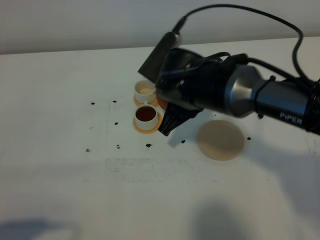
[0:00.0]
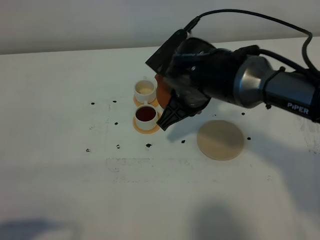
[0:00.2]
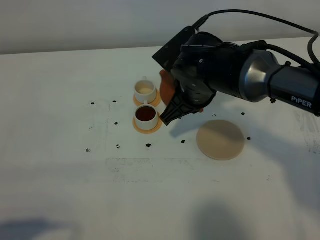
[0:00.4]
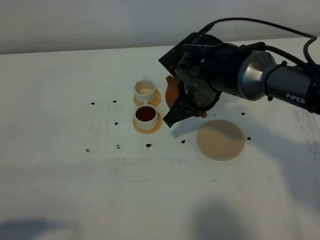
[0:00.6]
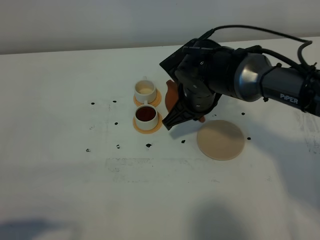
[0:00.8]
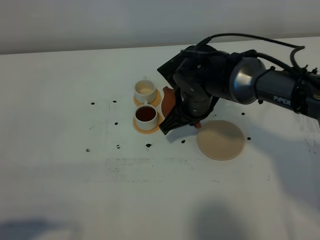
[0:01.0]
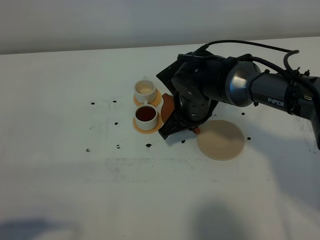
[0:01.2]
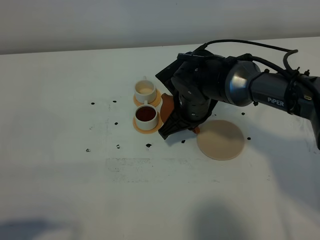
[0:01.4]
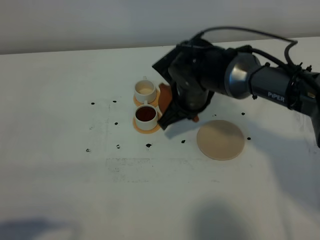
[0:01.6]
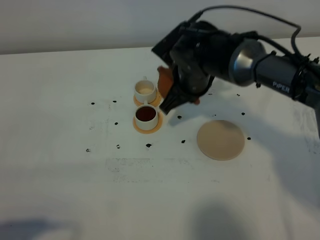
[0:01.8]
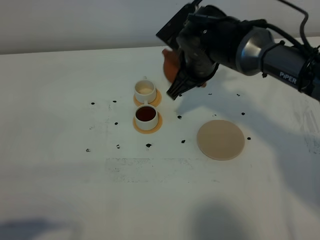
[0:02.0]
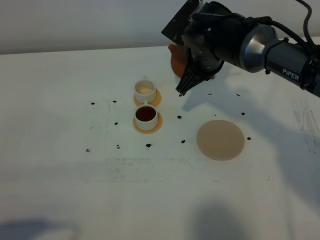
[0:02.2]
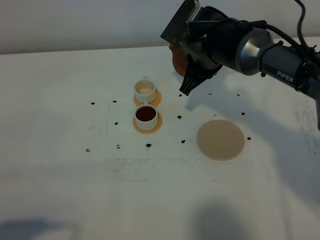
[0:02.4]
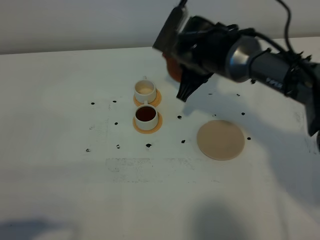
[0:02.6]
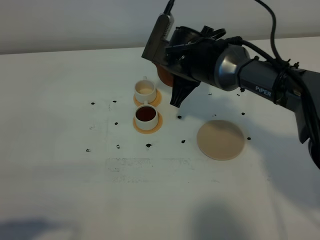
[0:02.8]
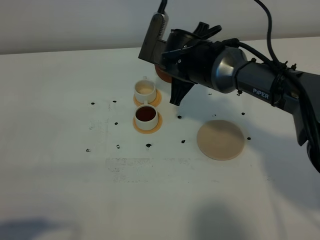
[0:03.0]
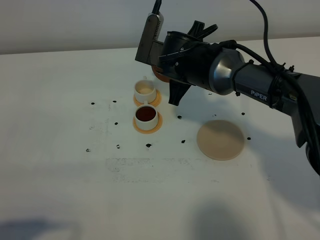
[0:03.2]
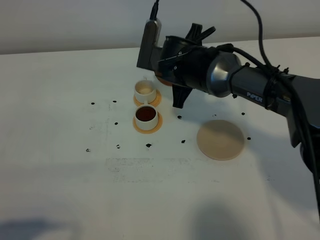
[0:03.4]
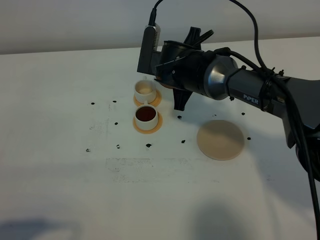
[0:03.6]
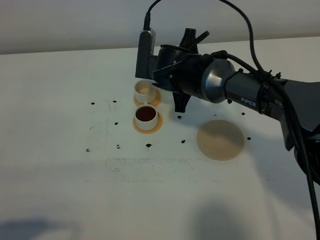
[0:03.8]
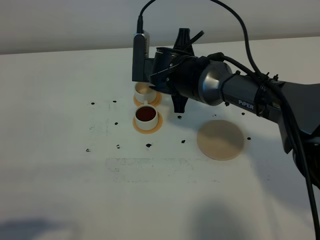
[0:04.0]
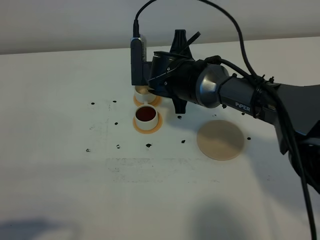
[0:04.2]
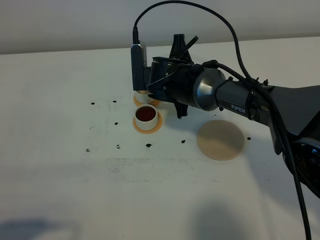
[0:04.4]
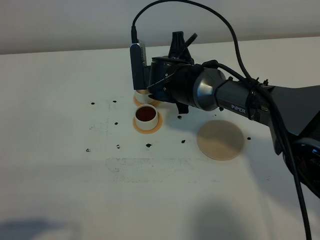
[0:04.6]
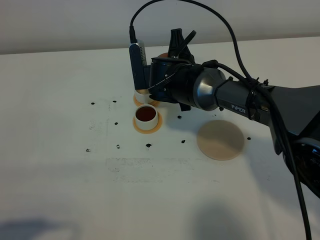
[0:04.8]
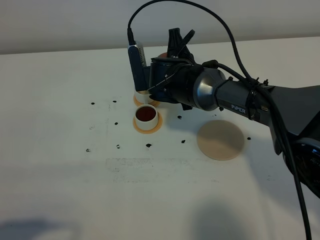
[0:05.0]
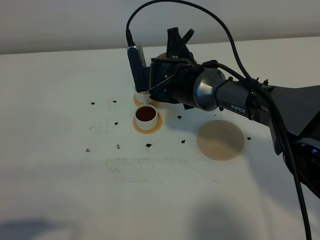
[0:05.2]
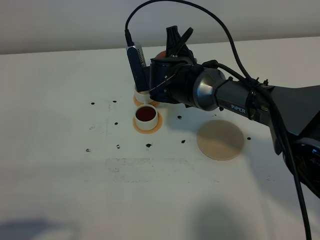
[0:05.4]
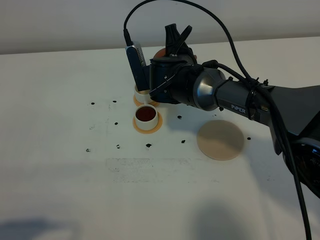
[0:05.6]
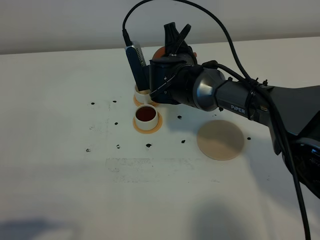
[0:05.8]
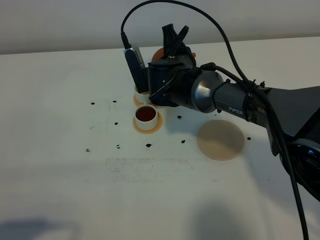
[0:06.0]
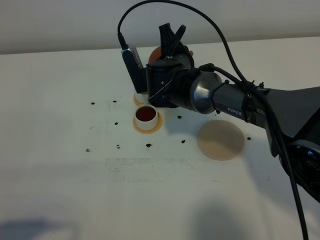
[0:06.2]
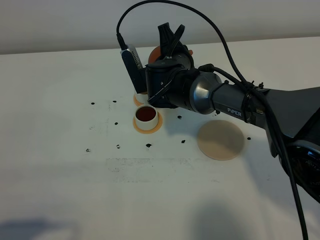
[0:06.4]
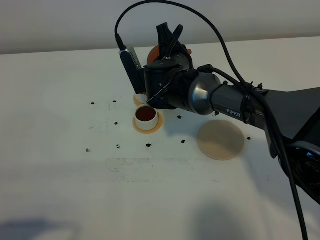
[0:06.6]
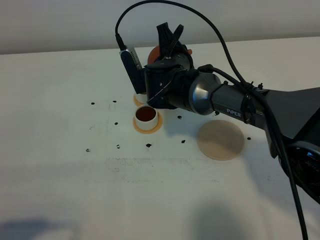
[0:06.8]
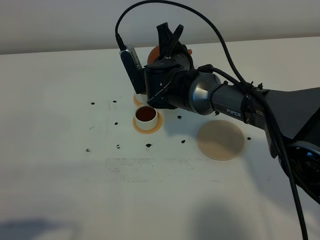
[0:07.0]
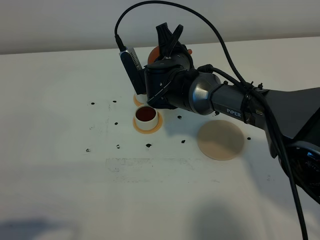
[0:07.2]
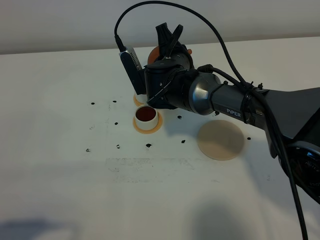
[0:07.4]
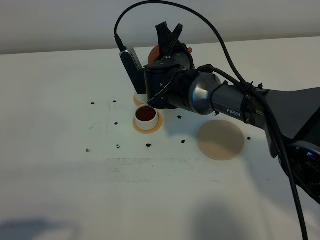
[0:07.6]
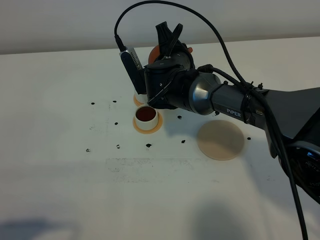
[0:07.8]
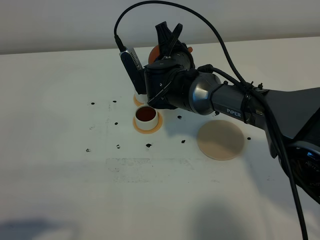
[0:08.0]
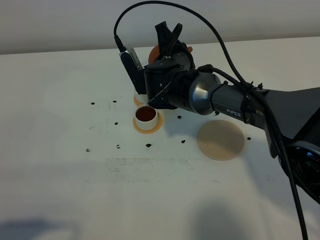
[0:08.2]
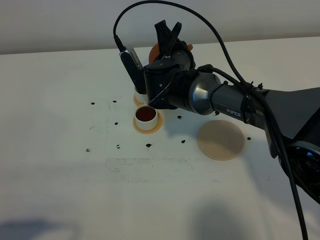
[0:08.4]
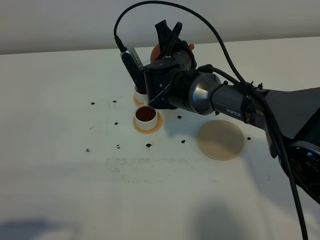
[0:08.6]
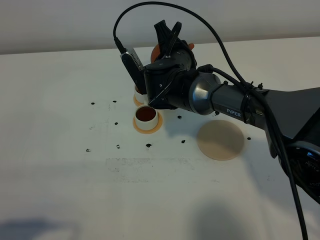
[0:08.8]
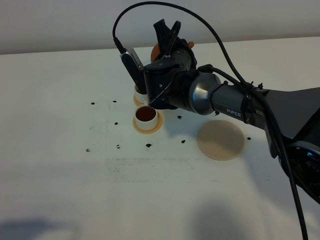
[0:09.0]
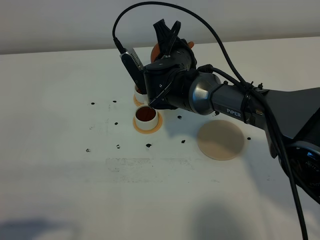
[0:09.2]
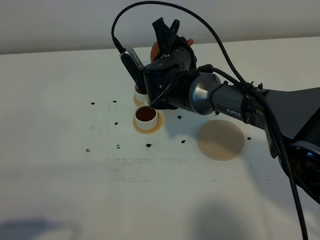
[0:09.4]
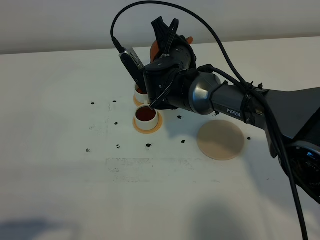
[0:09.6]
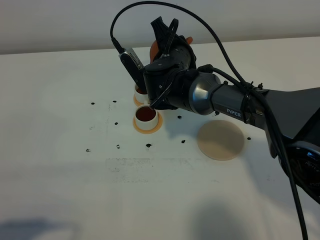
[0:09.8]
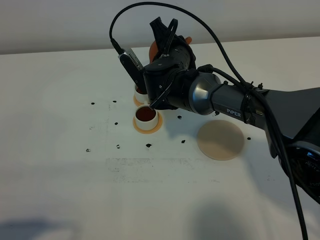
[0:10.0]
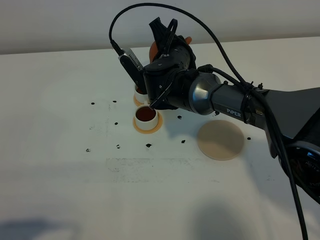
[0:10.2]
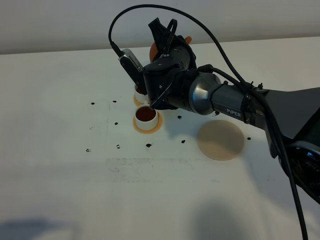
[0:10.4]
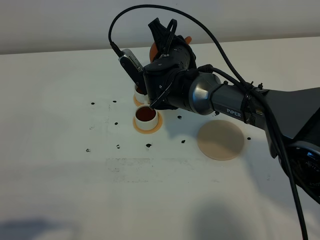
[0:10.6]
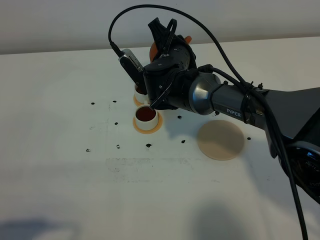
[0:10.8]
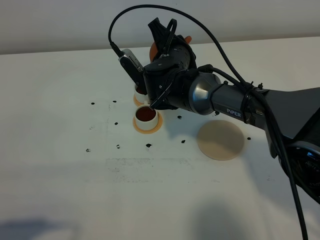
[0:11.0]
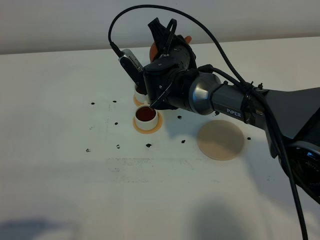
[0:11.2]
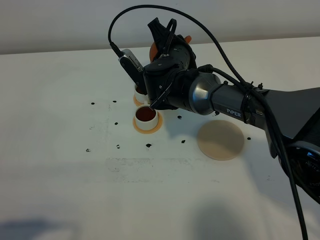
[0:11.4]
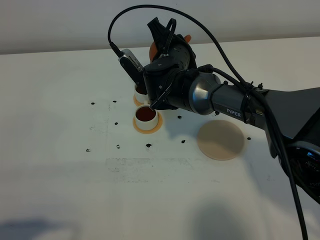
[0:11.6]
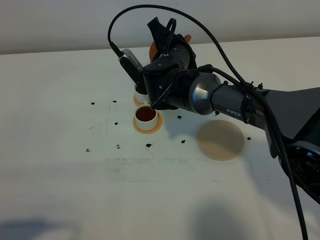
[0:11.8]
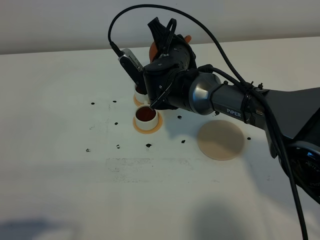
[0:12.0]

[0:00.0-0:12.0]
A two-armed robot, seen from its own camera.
Task of the whole recording: grasp the brown teapot and pour the tea into the two white teacups one by one, put the brown teapot back in its original place.
0:00.0 to 0:01.6: The right gripper shifts by roughly 5 cm.
0:04.4 to 0:06.0: The grippers stay close to where they were, moving slightly.
0:06.0 to 0:07.6: Neither gripper changes place.
0:07.6 to 0:10.4: There are only small adjustments of the grippers.
0:10.4 to 0:12.0: Both grippers stay put.

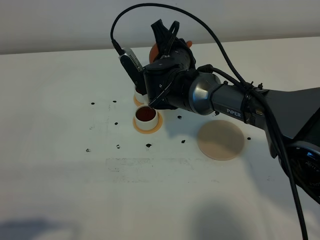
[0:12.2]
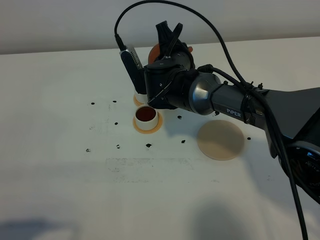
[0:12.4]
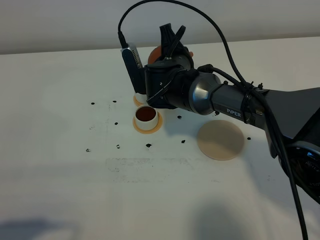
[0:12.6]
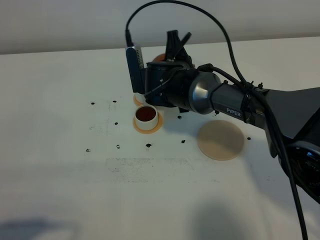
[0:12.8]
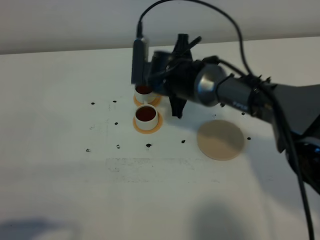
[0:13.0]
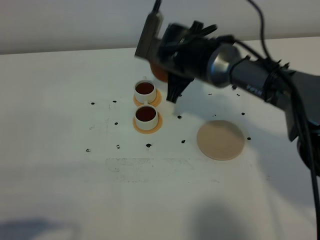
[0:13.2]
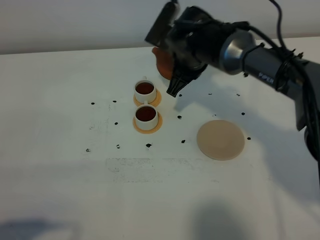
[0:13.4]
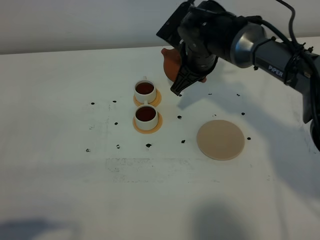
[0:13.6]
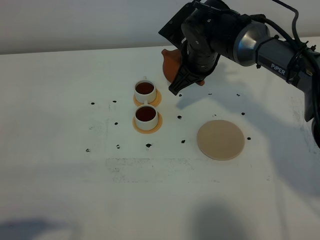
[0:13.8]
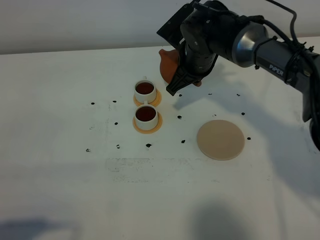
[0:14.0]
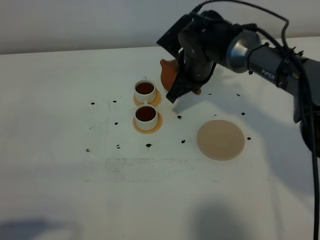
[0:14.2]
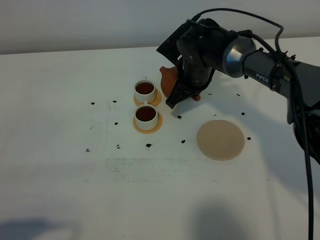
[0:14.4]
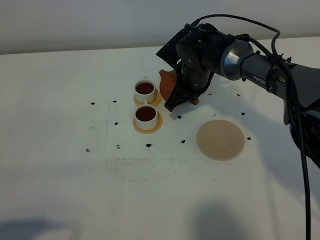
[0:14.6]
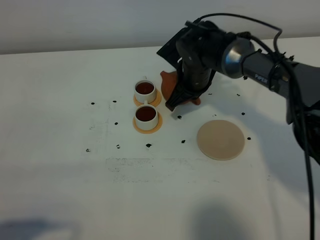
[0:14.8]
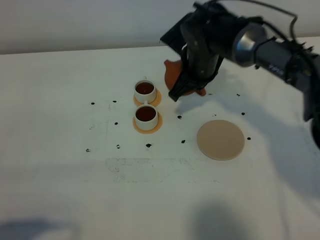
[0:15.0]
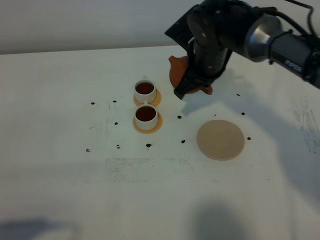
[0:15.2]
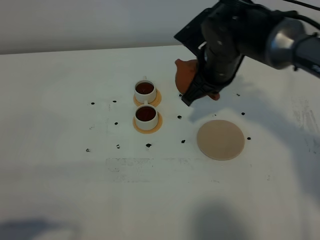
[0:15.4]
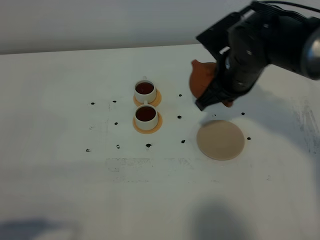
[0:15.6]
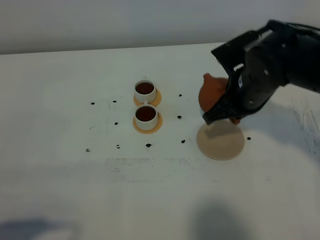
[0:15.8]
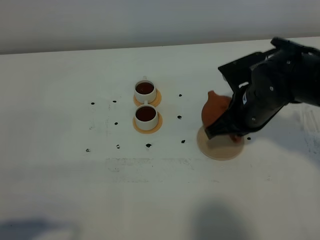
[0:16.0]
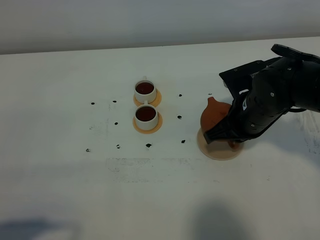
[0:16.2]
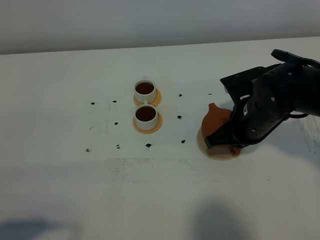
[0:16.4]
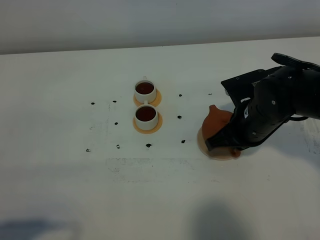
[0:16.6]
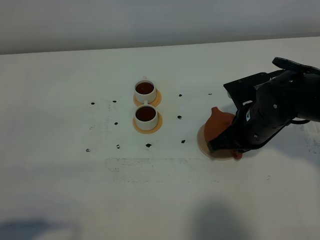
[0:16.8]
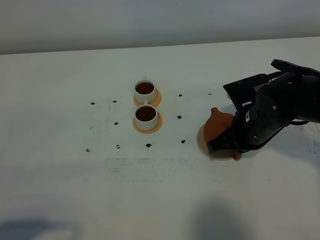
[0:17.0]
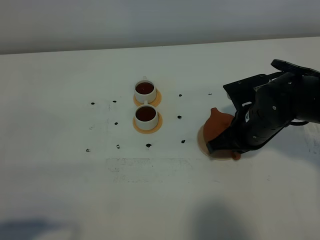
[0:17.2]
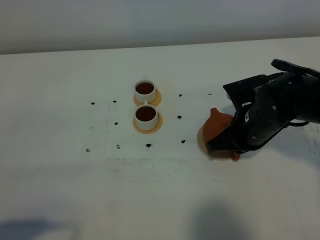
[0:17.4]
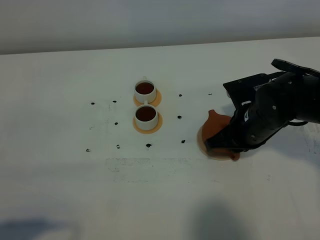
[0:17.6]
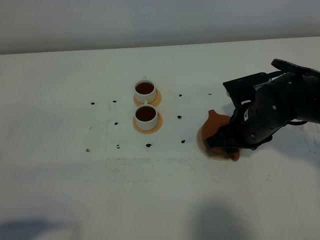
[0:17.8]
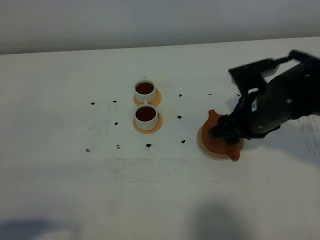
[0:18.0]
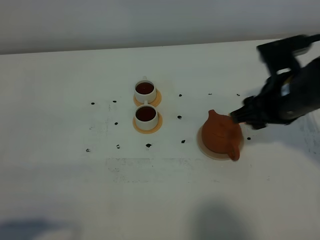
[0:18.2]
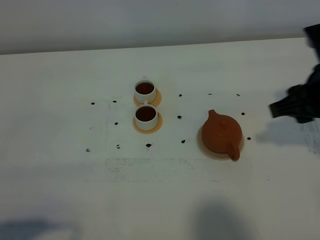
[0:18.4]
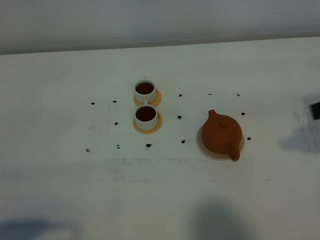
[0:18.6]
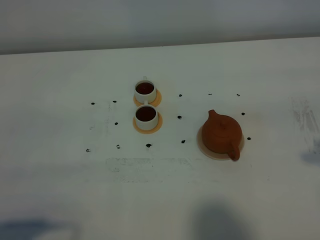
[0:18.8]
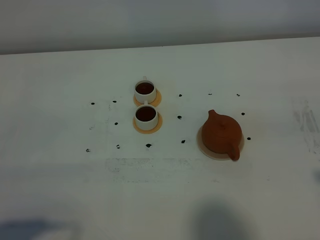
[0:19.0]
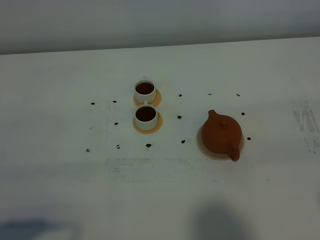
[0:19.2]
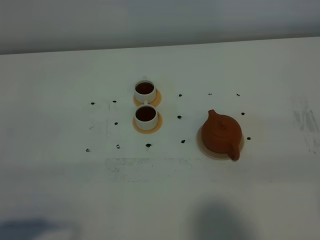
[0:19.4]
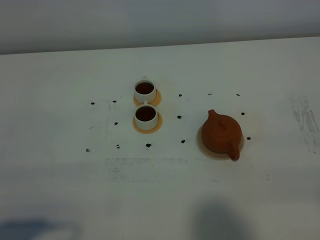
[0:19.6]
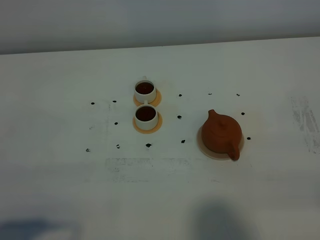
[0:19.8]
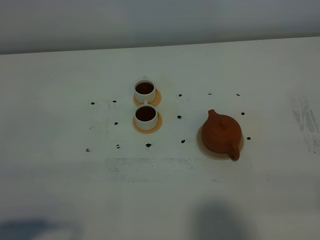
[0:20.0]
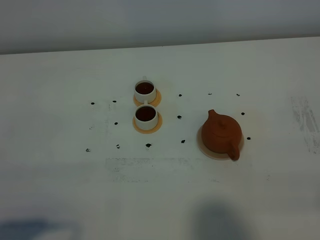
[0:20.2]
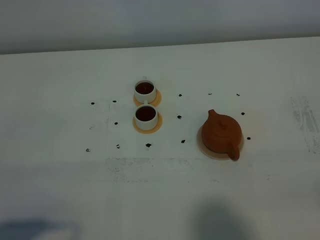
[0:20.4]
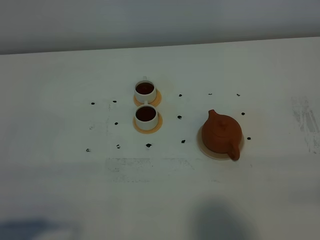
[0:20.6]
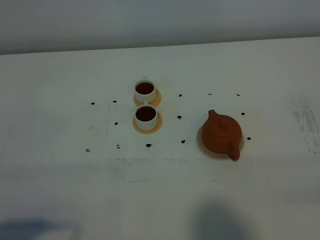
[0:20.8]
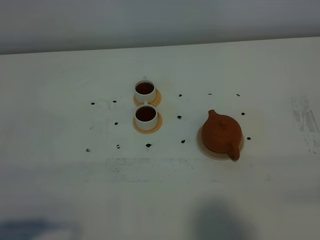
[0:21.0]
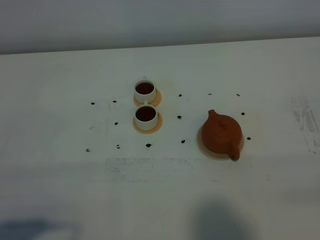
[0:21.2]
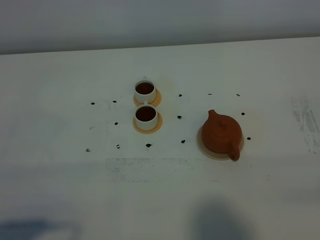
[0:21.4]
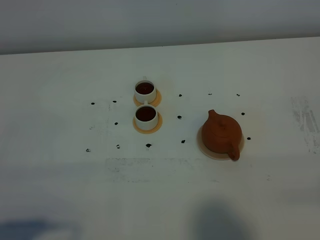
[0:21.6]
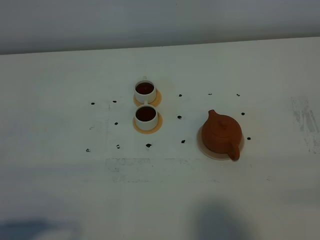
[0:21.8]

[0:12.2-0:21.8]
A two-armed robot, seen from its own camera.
Task of the whole recording: grasp the brown teapot and pour the tea into the two white teacups one by one, put the brown teapot back in its original place.
0:12.2 to 0:13.8: The right gripper is displaced to the right by some 5 cm.
0:13.8 to 0:15.4: The right gripper is displaced backward by some 5 cm, and reaches roughly 5 cm downward, then returns.
0:15.4 to 0:17.0: The right gripper shifts roughly 10 cm backward, downward and to the right.
0:17.0 to 0:18.6: The right gripper heads upward, to the right and backward, covering about 25 cm, and opens.

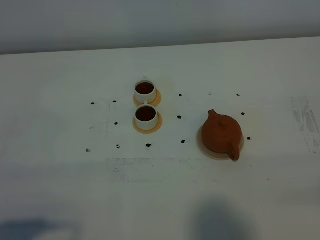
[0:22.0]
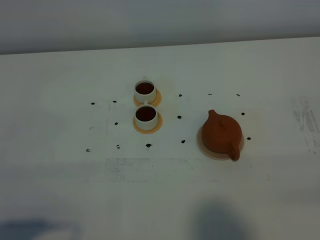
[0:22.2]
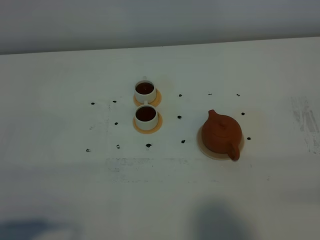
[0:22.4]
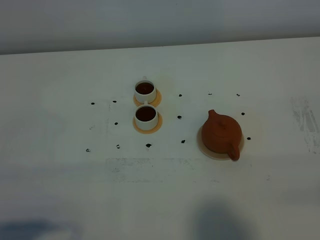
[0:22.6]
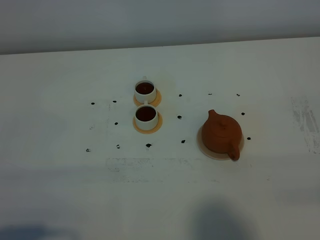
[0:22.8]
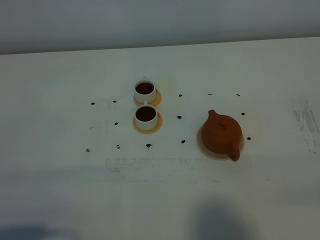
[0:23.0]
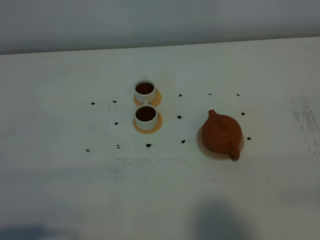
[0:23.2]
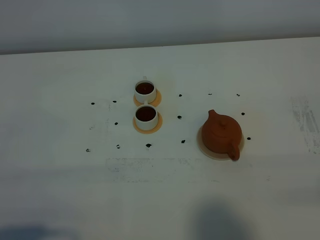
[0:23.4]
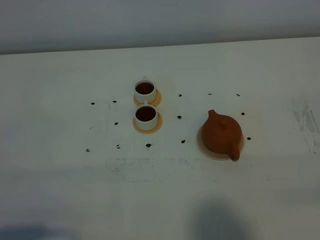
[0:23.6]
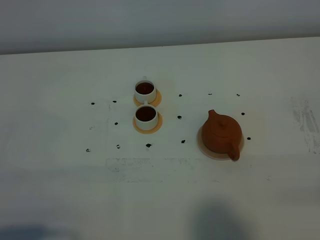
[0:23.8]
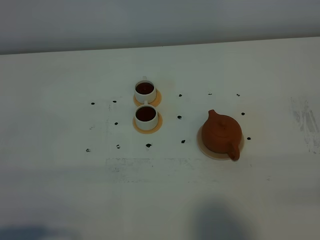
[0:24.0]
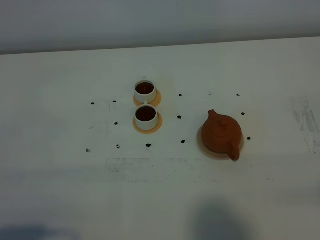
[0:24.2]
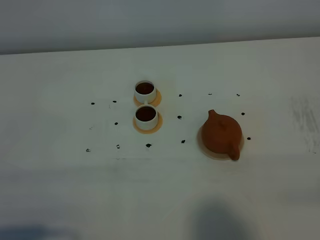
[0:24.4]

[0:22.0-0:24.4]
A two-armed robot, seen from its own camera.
Task of the whole recording: grasp the brown teapot and pour the tea into the two white teacups one by one, put the brown teapot back in its original place.
0:22.0 to 0:24.4: Neither gripper changes place.
